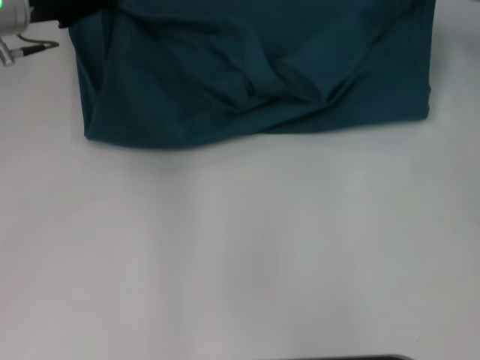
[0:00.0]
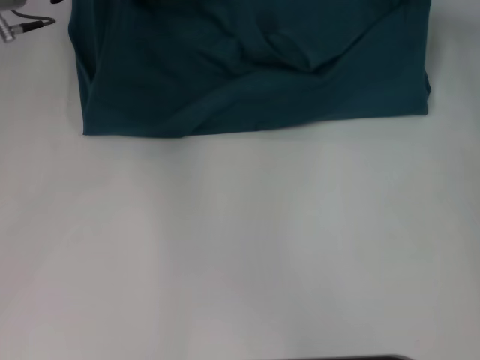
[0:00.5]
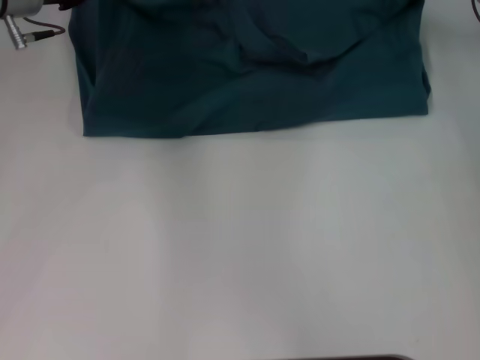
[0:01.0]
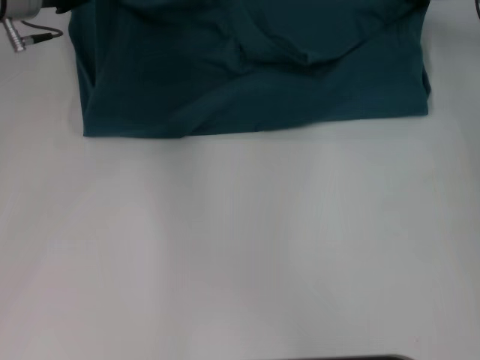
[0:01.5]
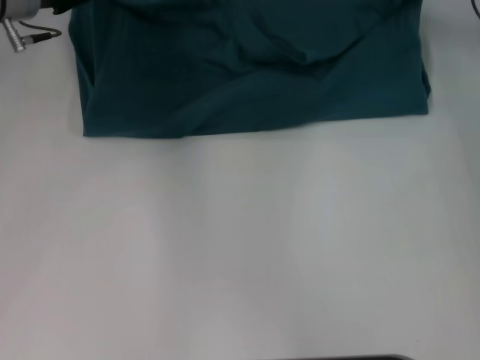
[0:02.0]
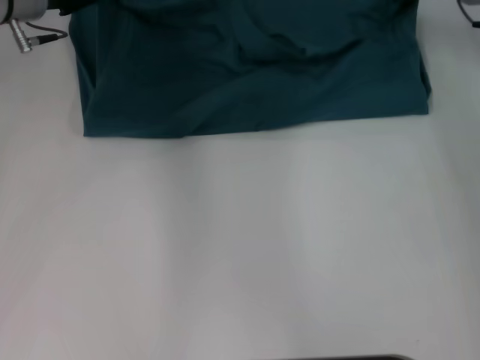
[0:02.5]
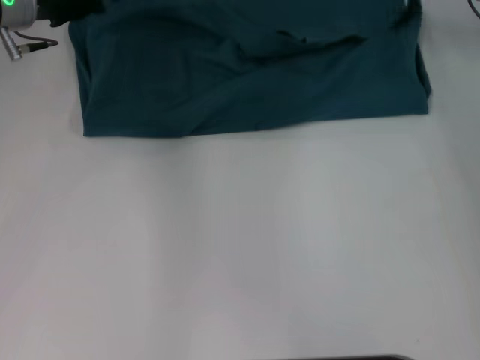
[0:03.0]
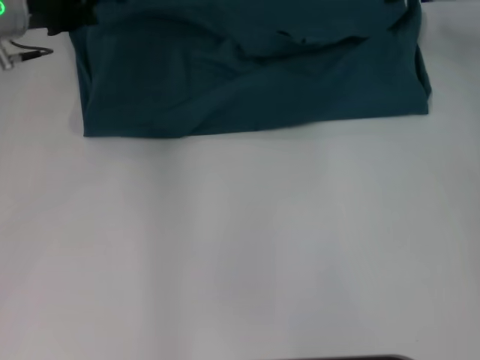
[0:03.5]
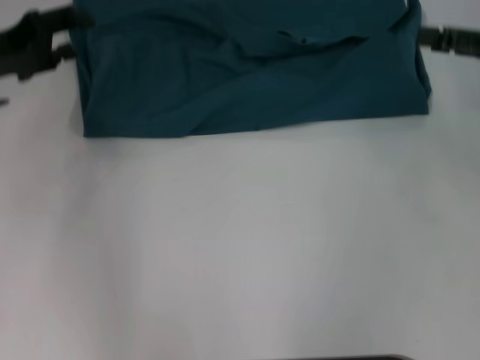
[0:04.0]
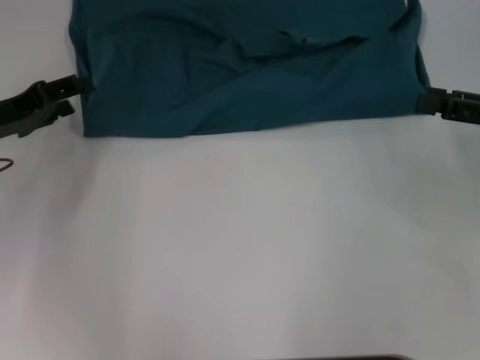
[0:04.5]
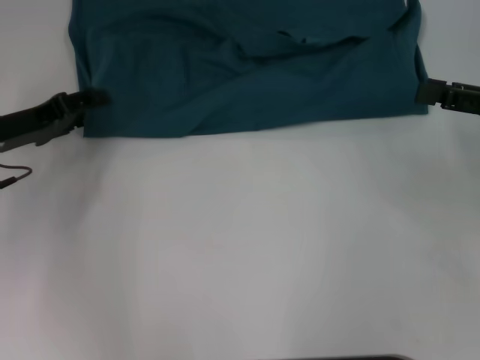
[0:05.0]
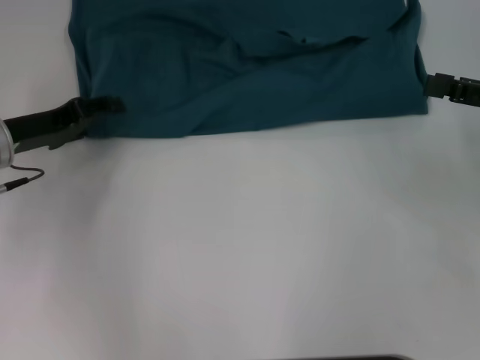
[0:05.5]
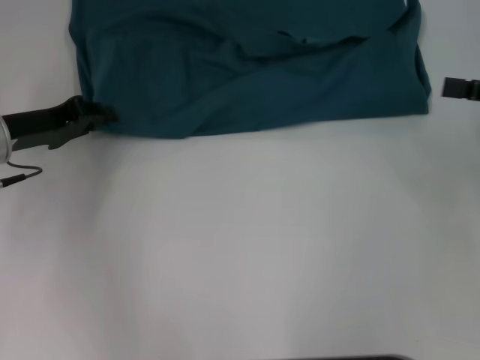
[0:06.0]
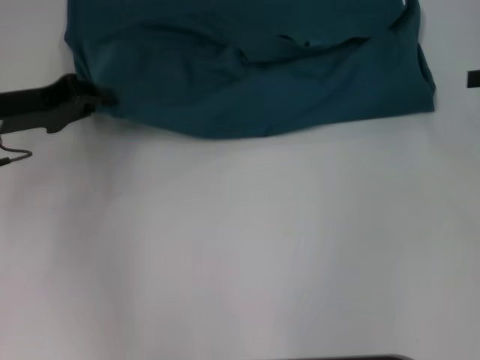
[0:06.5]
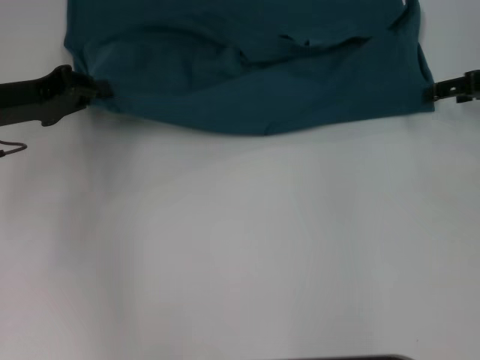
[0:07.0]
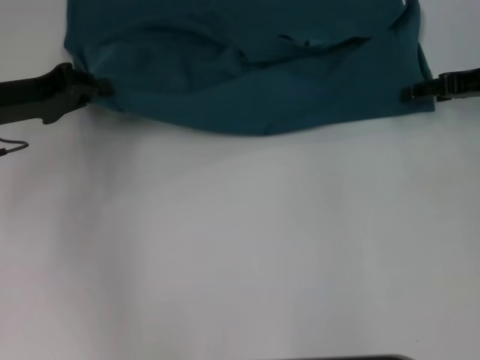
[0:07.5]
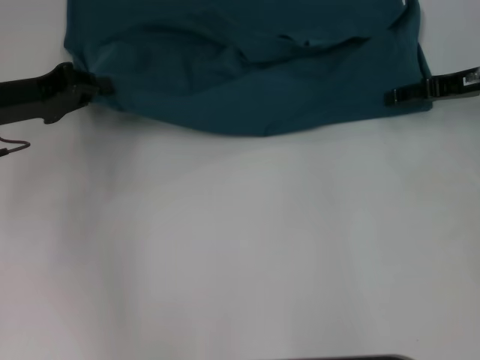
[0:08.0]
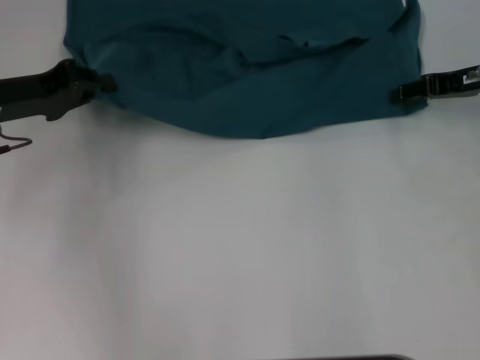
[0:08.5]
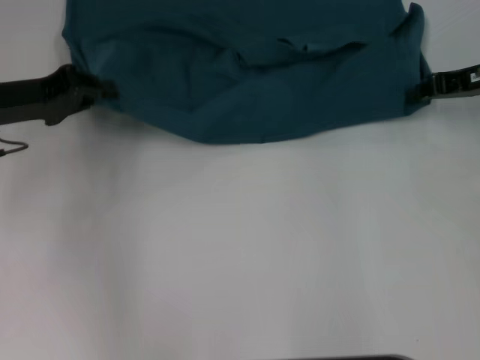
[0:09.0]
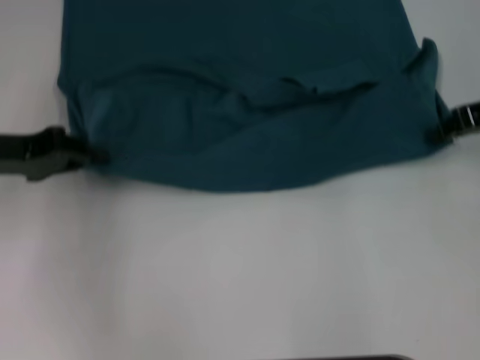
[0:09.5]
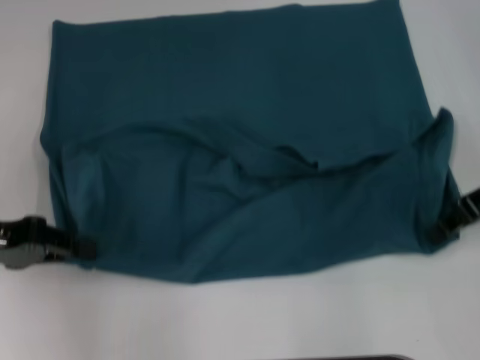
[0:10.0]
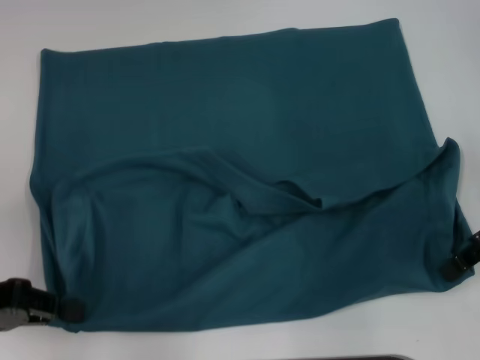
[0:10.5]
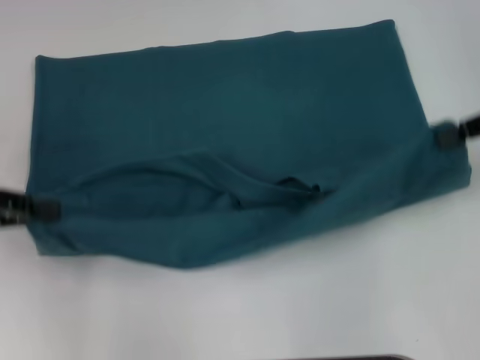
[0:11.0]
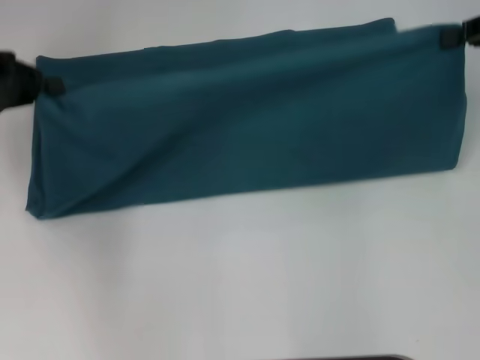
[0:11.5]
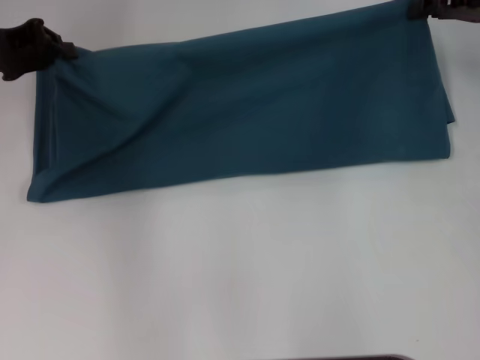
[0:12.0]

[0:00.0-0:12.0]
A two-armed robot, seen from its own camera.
Step, 0:00.0 to 0:03.0: Fold the clothes to the left.
Step, 0:00.0 to 0:03.0: Fold the clothes to the right.
Step, 0:03.5 to 0:10.5: Pull the clothes with your left hand.
Step, 0:03.5 to 0:10.5: Pull the clothes with your right hand.
0:00.0 to 0:02.0: The right gripper moves approximately 5 cm.
0:02.0 to 0:04.0: The left gripper shifts some 10 cm backward and to the left, and opens up. The right gripper is displaced backward and to the right by about 15 cm, and opens up.
0:04.0 to 0:06.0: The left gripper is displaced downward by roughly 5 cm, and closes its fingers.
0:06.0 to 0:08.0: The right gripper heads forward and to the left, covering approximately 10 cm.
0:08.0 to 0:10.0: Both grippers travel together backward, about 10 cm. The right gripper closes its fingers.
0:10.0 to 0:12.0: Both grippers move forward, approximately 10 cm.

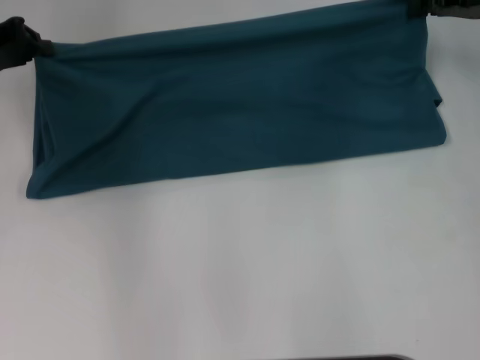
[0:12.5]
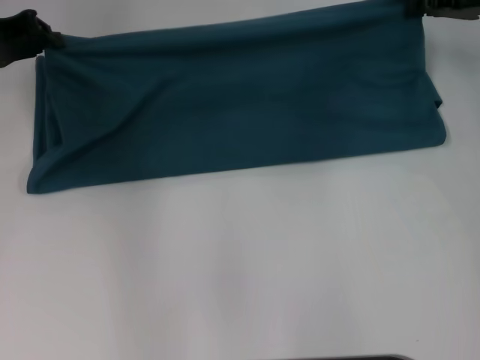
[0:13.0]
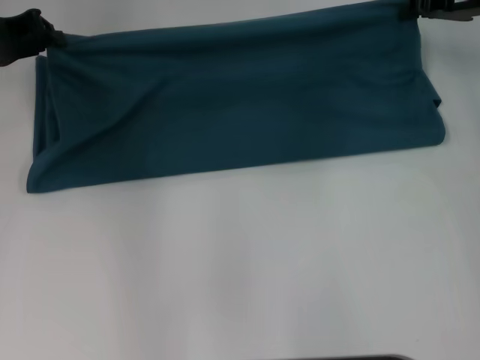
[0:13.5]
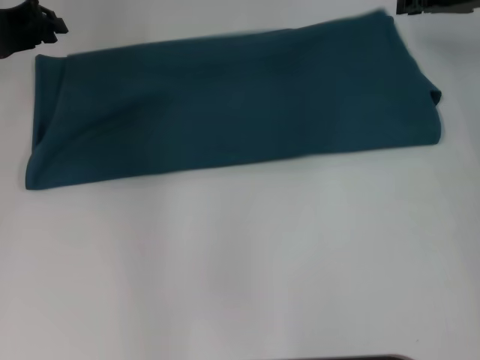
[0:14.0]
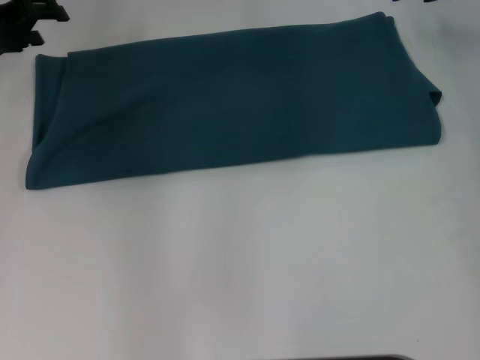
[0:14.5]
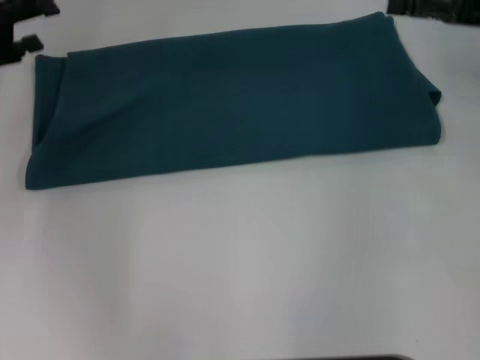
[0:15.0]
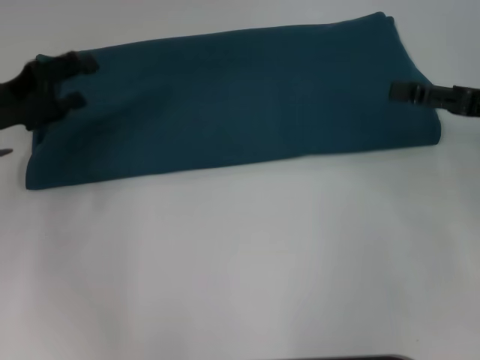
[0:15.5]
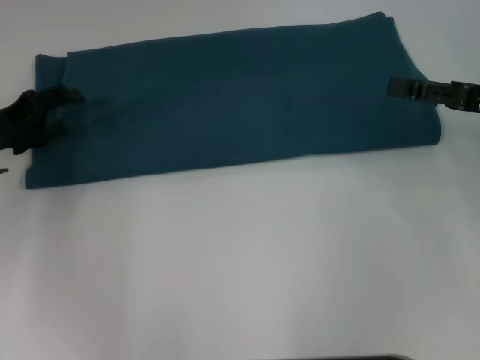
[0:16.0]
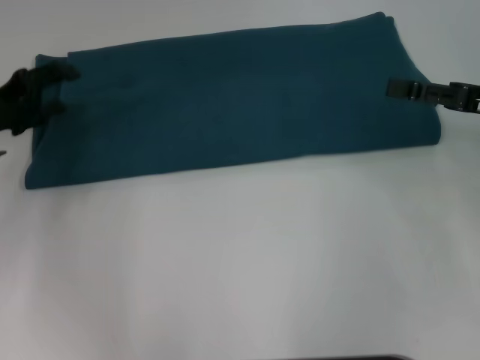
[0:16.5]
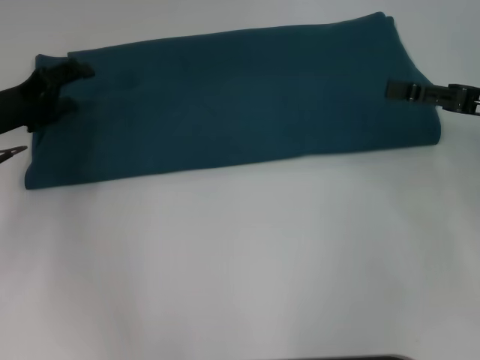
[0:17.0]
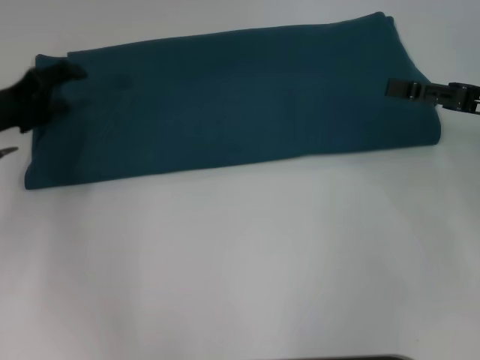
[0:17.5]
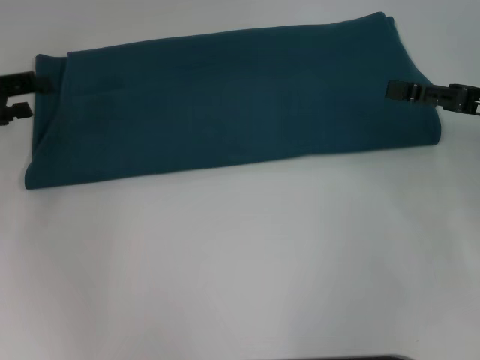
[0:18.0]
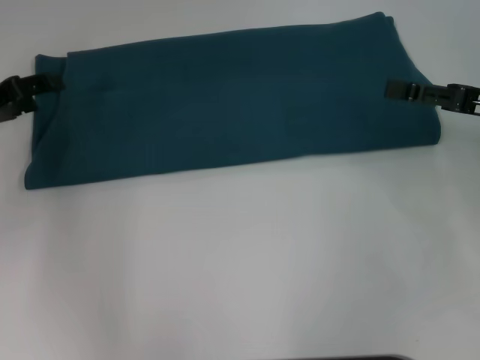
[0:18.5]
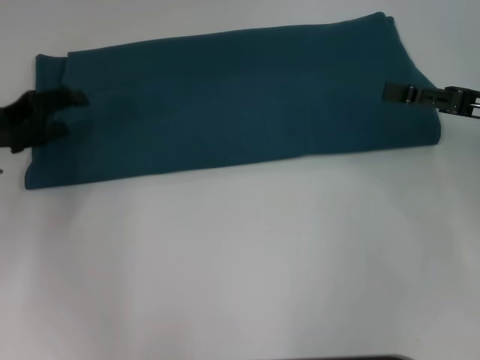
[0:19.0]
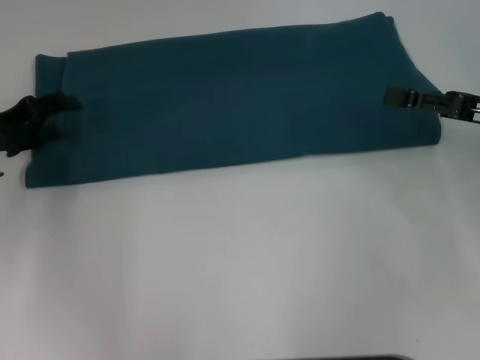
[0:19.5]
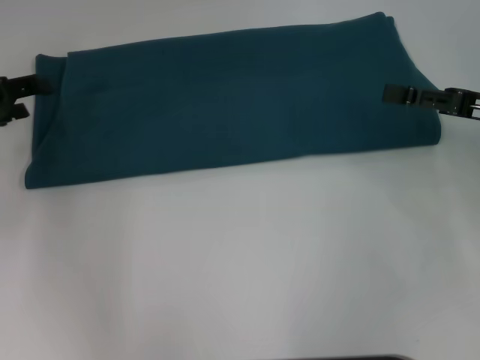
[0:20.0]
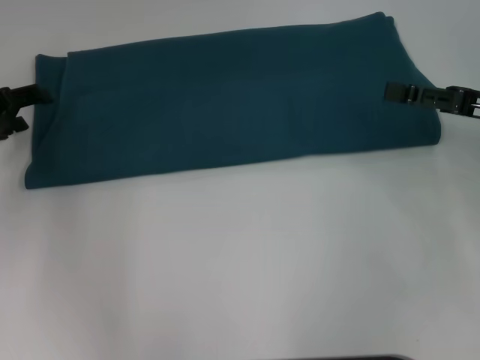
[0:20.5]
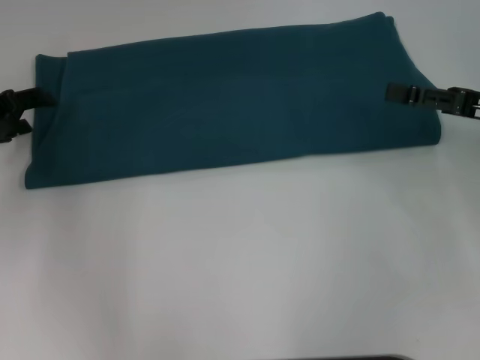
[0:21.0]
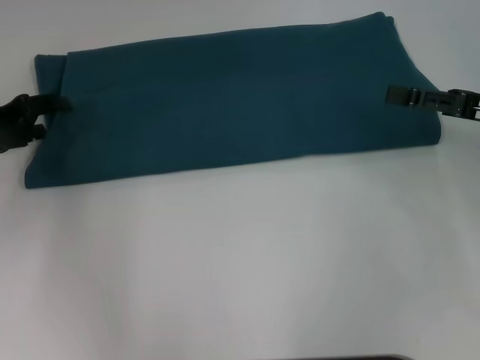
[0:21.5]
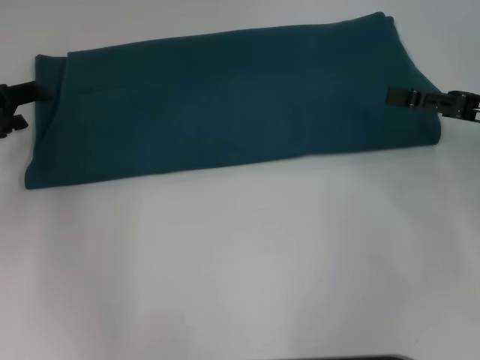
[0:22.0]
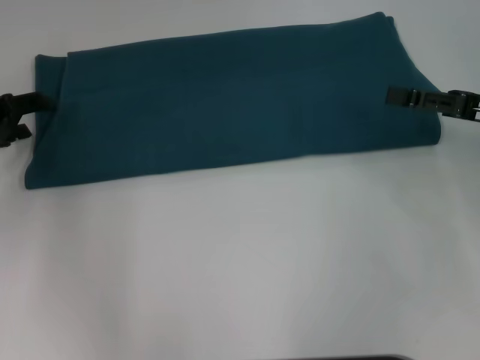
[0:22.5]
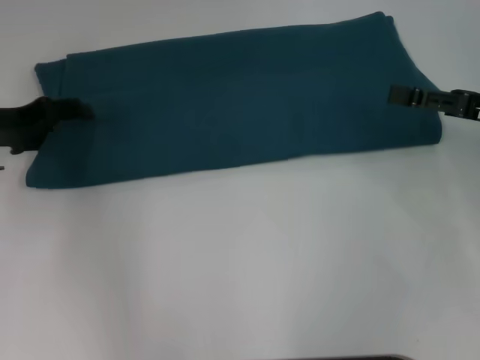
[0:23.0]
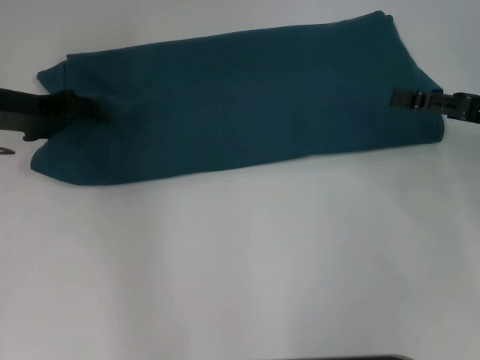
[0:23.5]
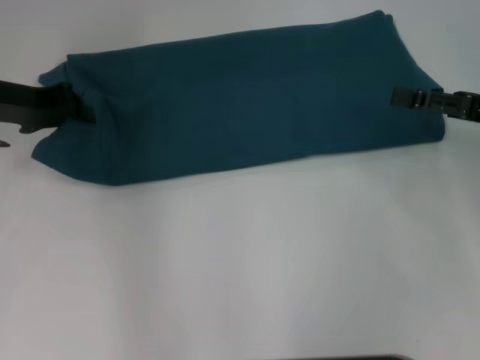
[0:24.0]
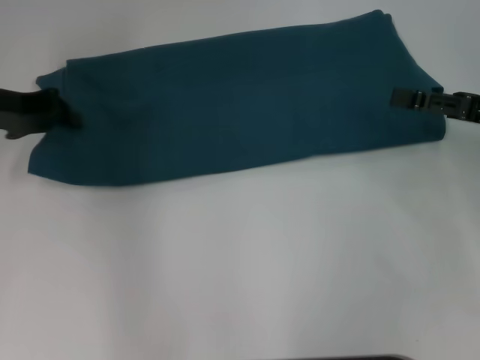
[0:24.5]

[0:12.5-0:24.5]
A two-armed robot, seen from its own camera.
0:12.5 to 0:14.5: The left gripper opens its fingers, while the right gripper opens its fingers.
0:14.5 to 0:16.5: The left gripper goes about 10 cm backward and downward, and opens up. The right gripper moves backward, some 15 cm, and opens.
0:18.5 to 0:20.5: The grippers stay close to where they were, moving slightly.
0:22.5 to 0:24.5: The left gripper changes place by roughly 5 cm, and closes.

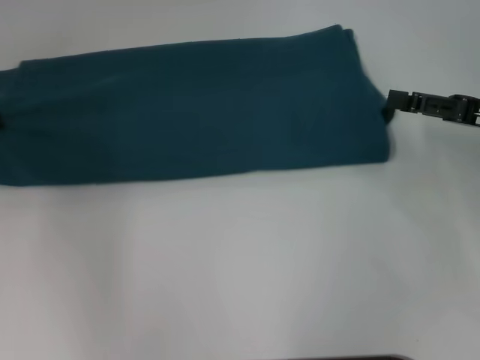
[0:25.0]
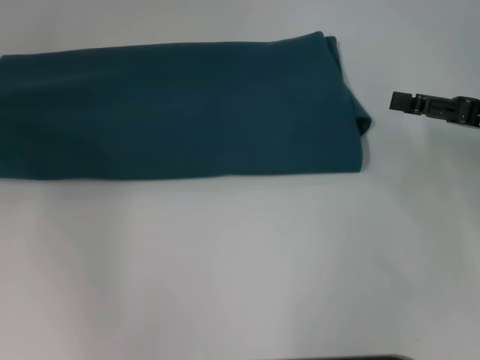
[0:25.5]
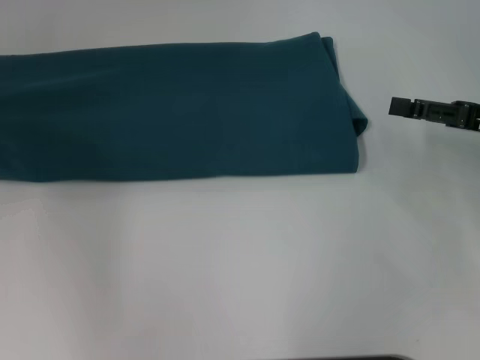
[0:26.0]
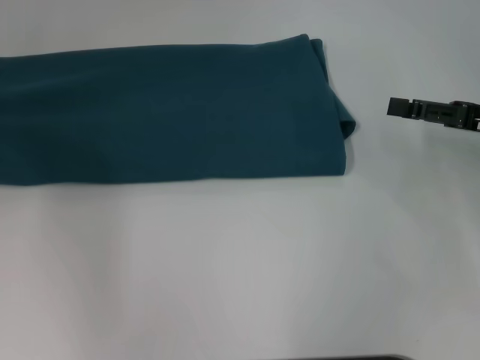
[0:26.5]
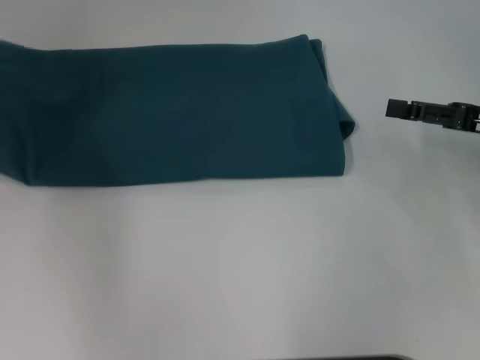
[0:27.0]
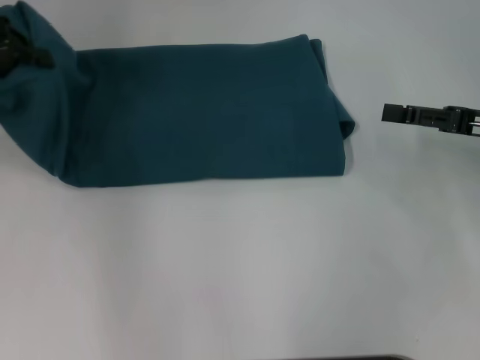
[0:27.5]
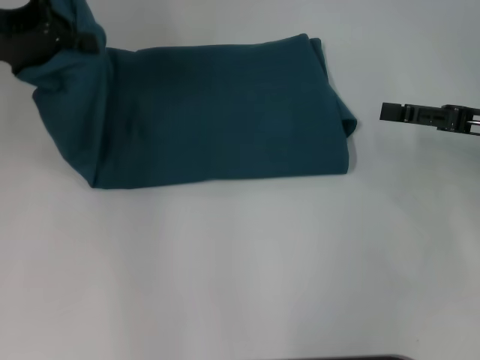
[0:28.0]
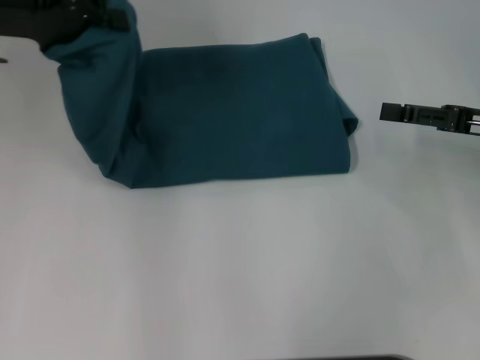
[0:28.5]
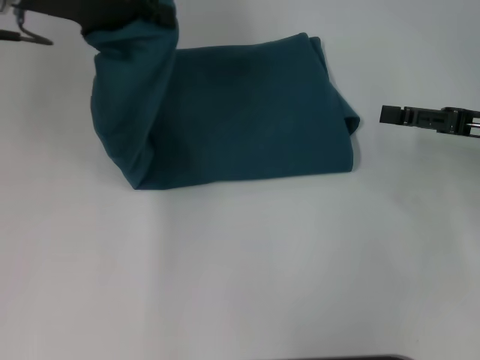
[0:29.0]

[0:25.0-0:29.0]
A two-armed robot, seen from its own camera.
0:25.0 to 0:27.0: There are only small adjustments of the grippers.
0:27.0 to 0:29.0: The left gripper is displaced to the right and upward by about 15 cm.
